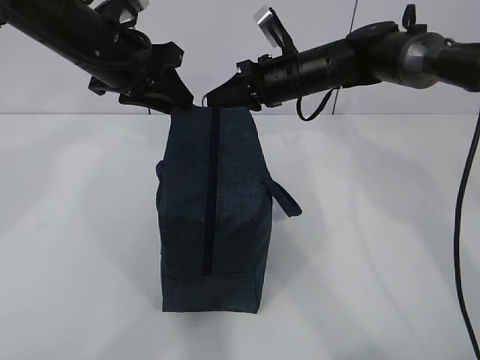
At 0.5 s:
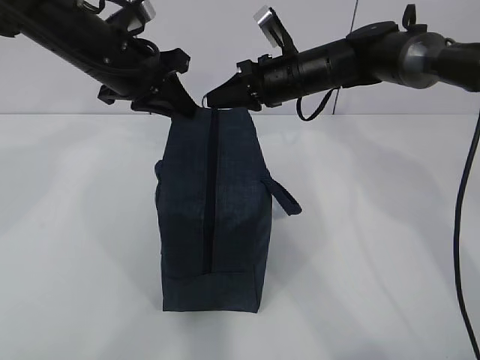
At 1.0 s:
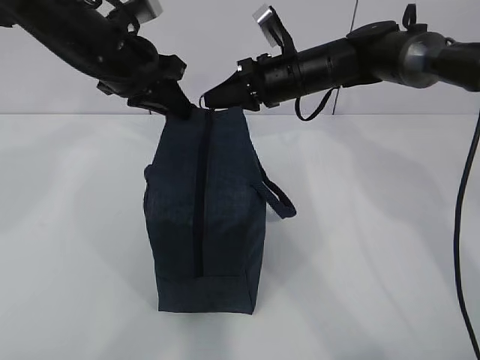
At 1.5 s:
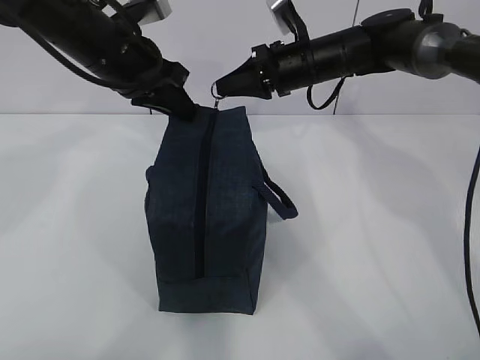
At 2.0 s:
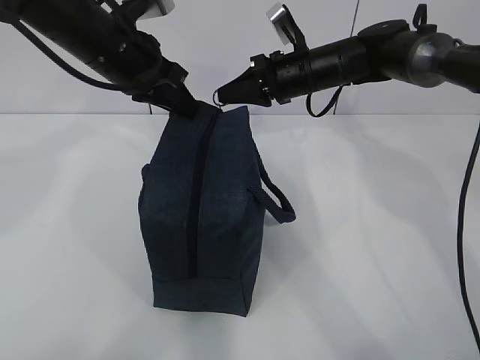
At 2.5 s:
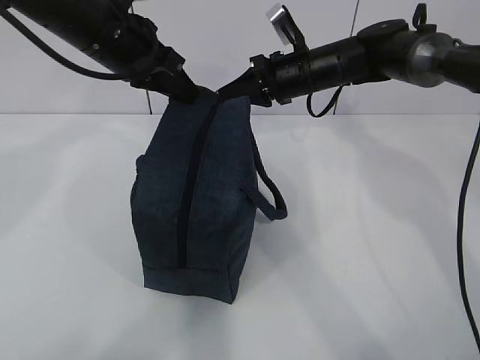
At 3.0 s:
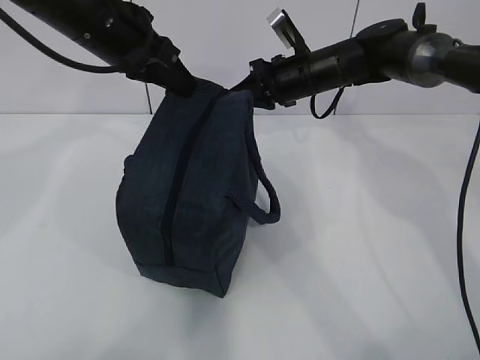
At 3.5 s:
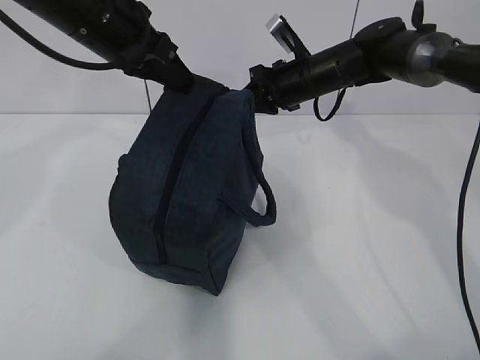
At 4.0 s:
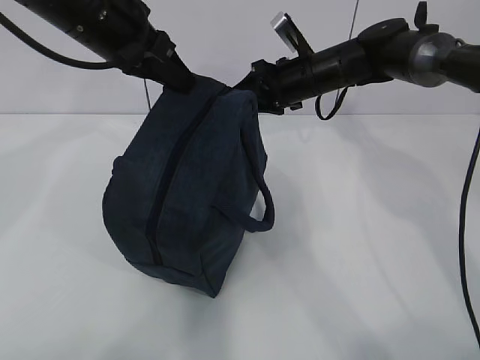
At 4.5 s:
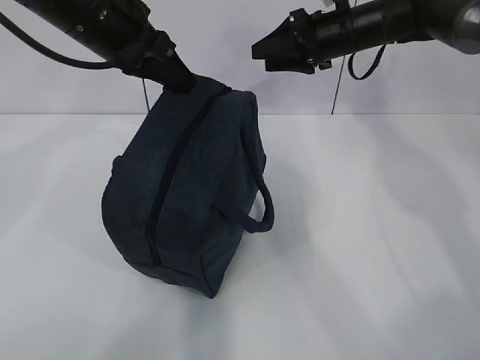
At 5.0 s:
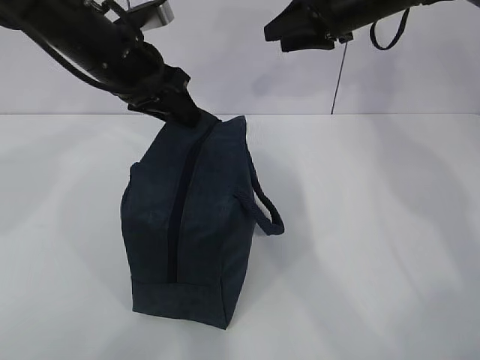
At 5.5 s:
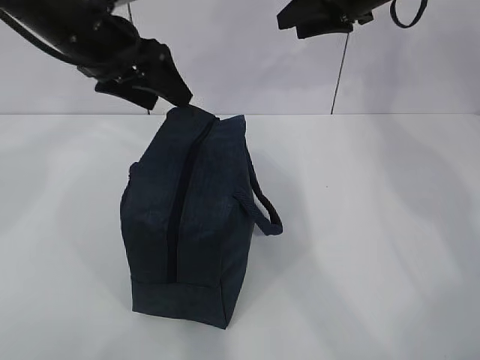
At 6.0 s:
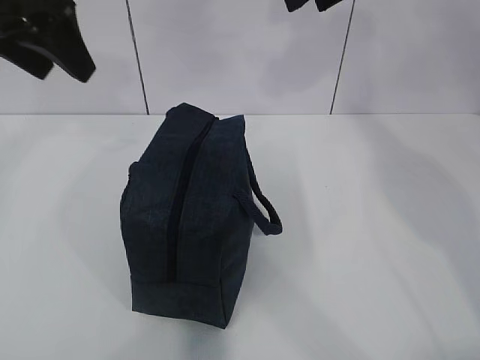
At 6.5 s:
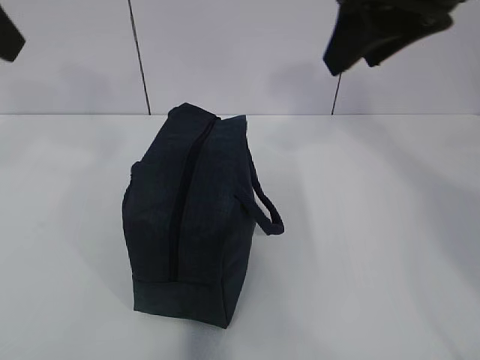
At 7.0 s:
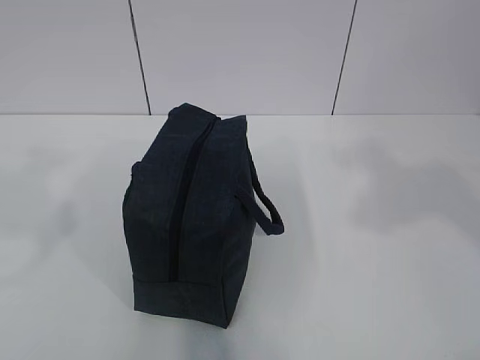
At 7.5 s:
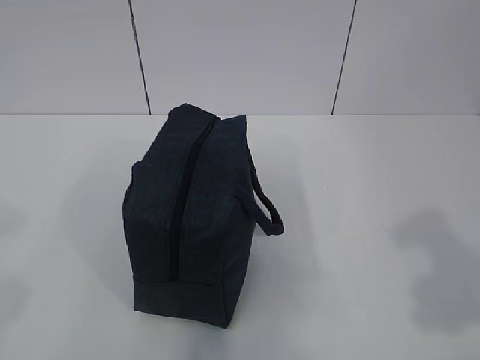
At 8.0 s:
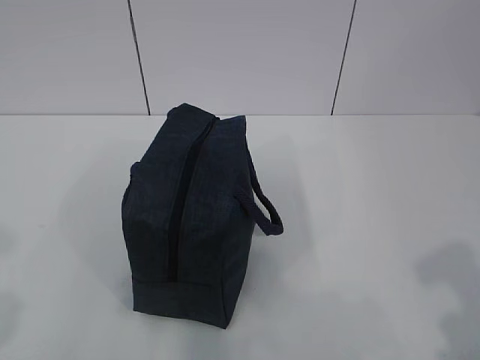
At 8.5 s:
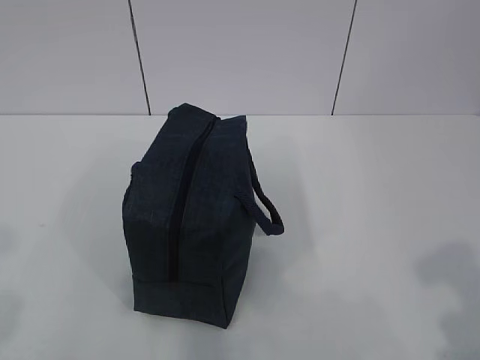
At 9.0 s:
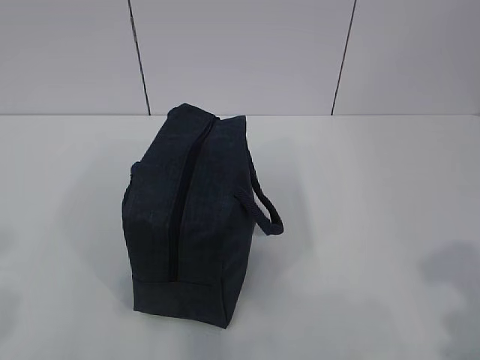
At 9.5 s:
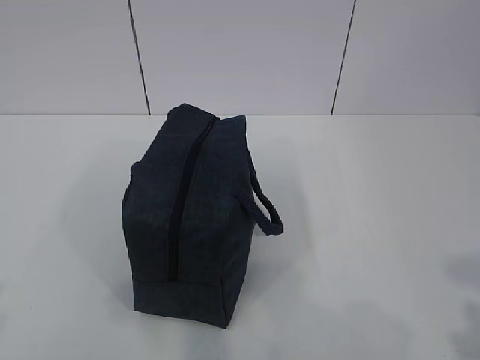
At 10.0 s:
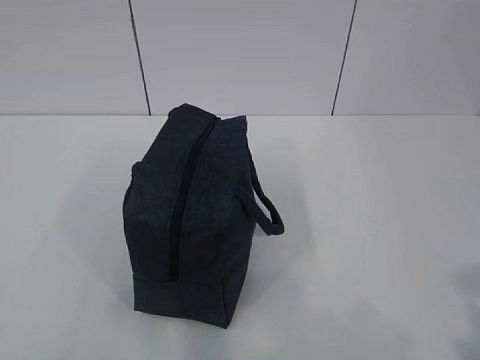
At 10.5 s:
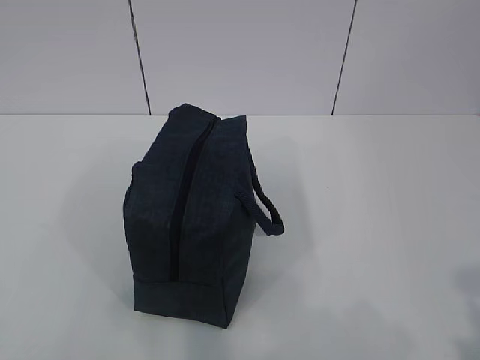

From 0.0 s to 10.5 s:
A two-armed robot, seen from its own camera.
From 0.0 s to 2.0 s: The left gripper closes.
From 2.0 s to 4.0 s: The right gripper opens.
From 4.0 s to 6.5 s: The right gripper goes approximately 30 cm backward and upward. Meanwhile the left gripper moves backward, upward and to the left, about 20 cm, and opens.
From 6.5 s to 8.5 s: The left gripper heads backward and downward, covering approximately 25 cm, while the right gripper shifts about 30 cm backward, downward and to the right.
